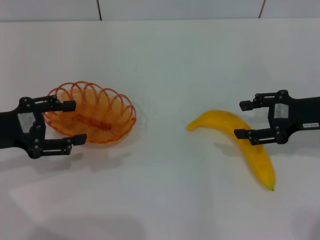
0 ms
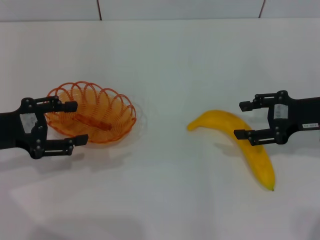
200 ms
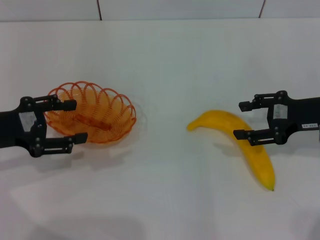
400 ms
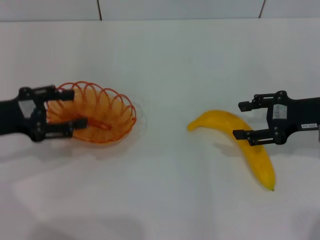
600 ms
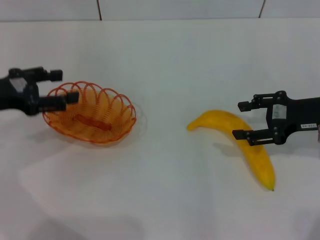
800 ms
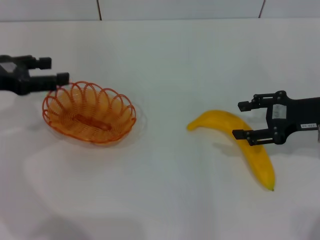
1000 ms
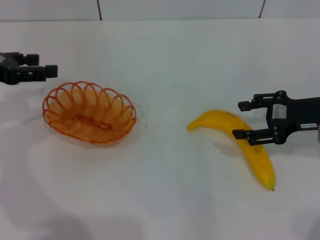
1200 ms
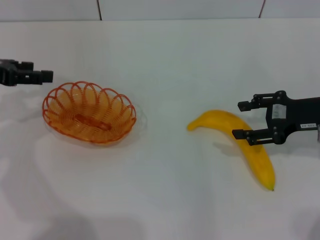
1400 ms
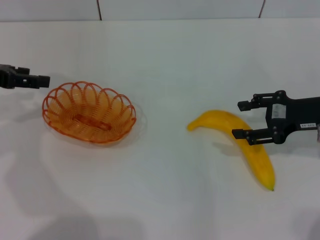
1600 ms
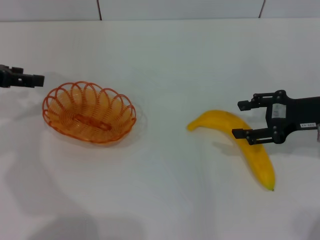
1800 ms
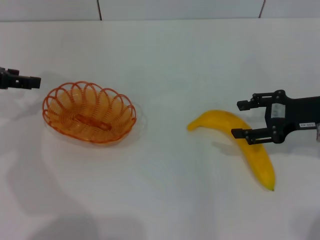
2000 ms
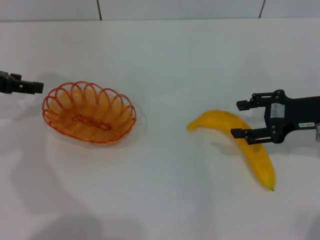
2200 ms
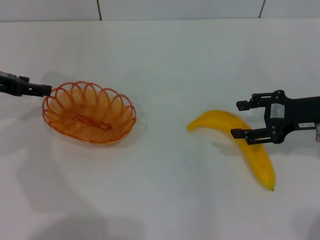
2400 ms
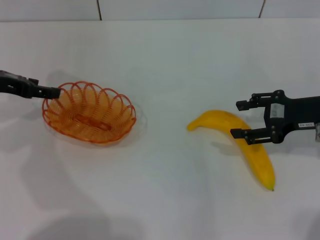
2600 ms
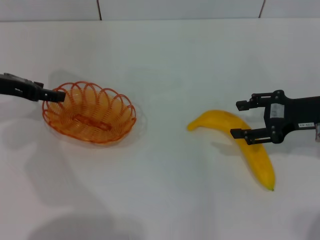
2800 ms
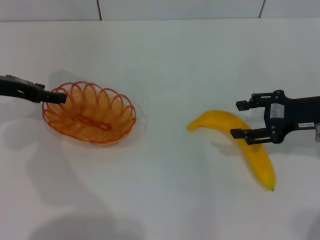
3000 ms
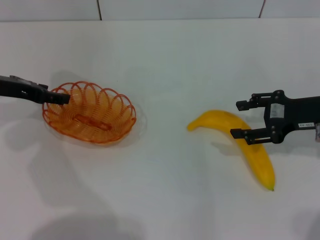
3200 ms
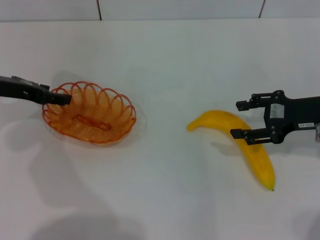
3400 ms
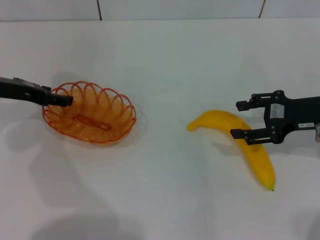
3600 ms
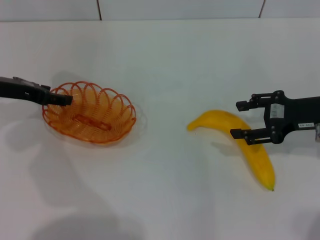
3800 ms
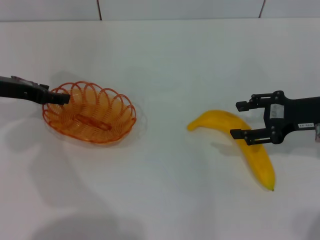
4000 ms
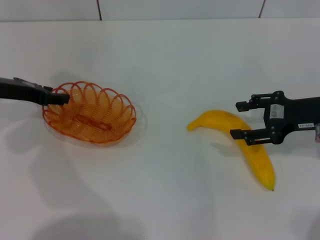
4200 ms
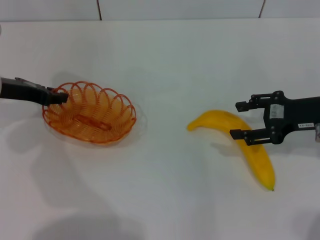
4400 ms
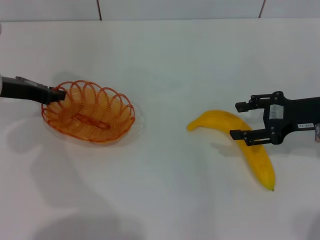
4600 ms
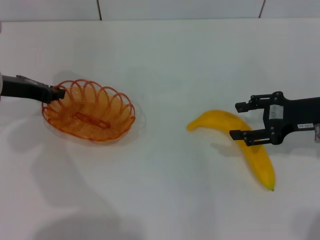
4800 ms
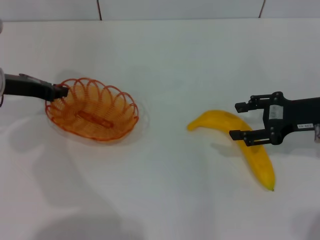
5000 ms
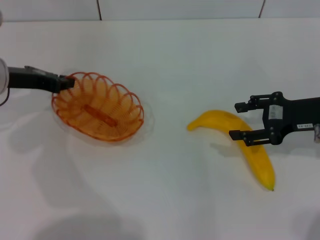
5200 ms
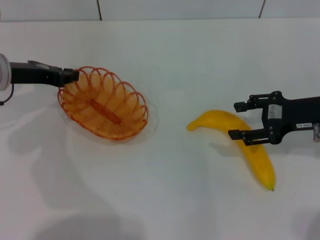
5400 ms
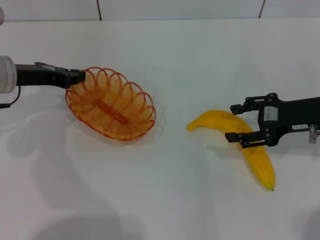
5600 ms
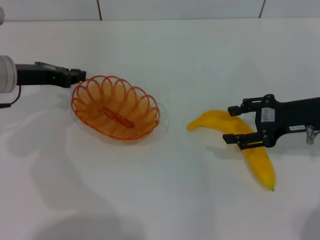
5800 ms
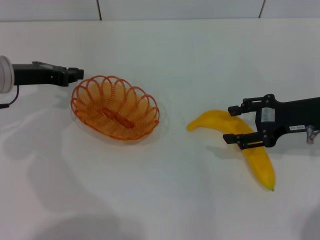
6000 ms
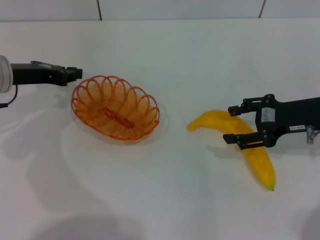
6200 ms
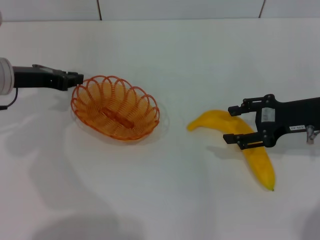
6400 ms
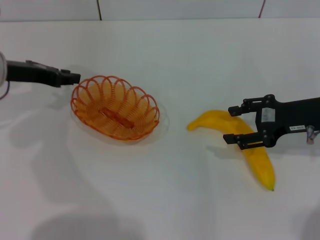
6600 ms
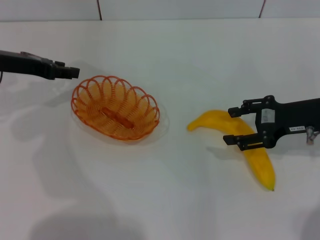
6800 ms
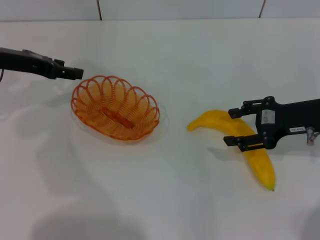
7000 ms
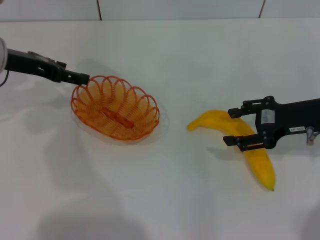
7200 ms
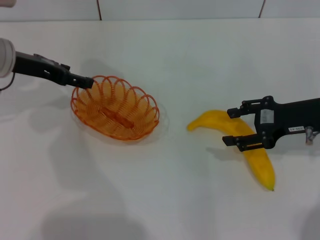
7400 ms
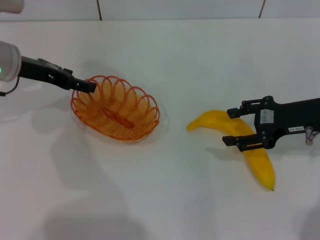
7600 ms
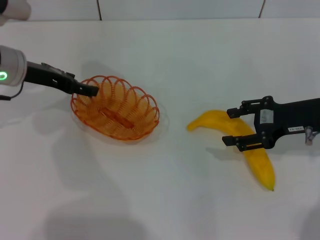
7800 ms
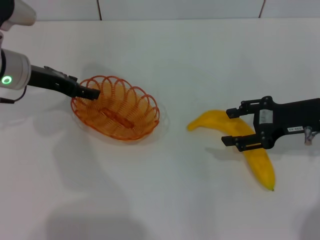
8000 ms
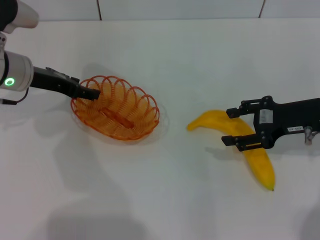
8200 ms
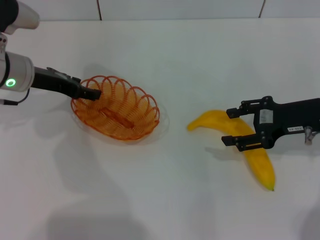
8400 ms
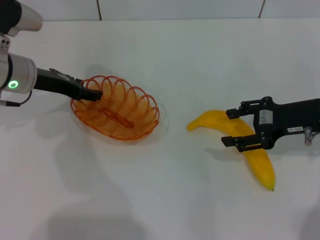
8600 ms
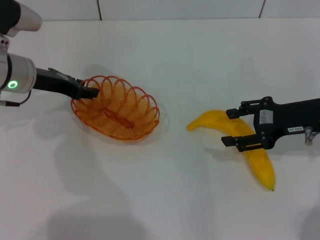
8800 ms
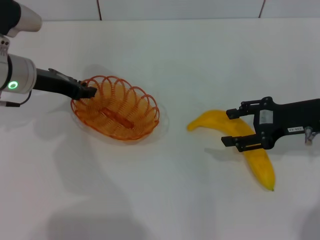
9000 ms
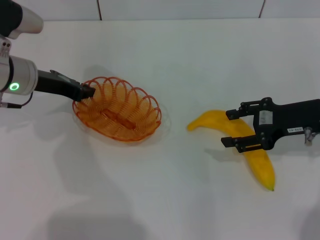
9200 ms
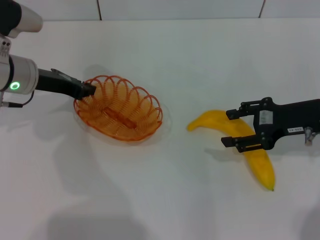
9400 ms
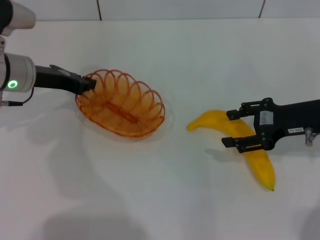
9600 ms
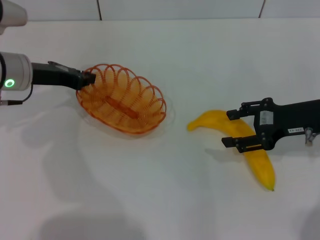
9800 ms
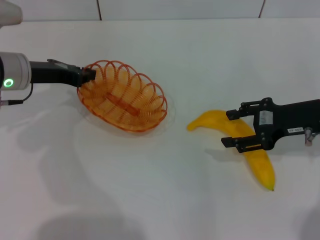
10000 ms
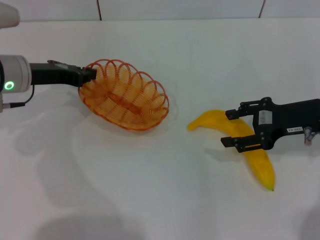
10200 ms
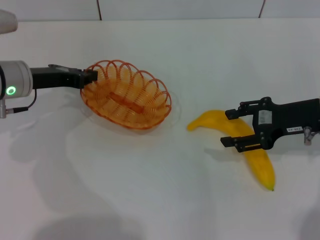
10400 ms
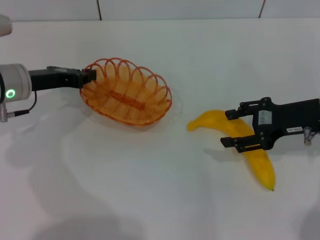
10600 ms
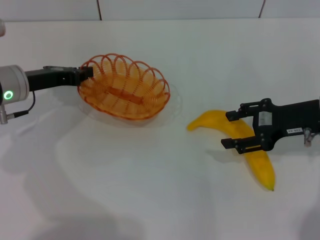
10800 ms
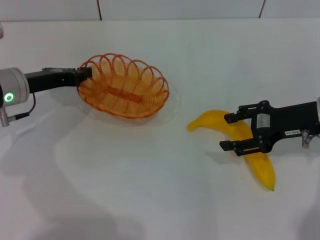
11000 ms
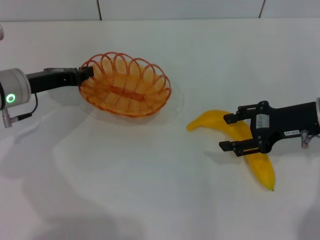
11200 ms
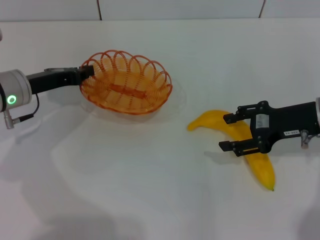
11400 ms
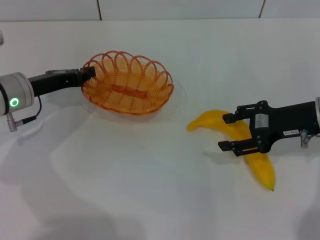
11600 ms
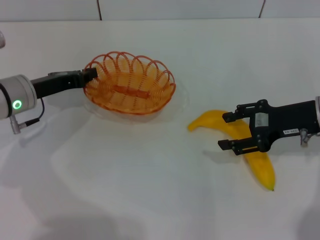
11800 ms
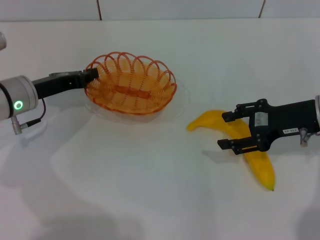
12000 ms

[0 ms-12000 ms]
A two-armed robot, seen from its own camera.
Step, 0 ms to 10800 ms: Pick up the basket with the left gripper.
0 ms to 1600 ms: The left gripper shifts approximately 10 cm forward and upward.
1600 ms to 3000 ms: The left gripper moves about 5 cm.
3000 ms to 4400 ms: The grippers stay close to where they were, moving slightly.
4400 ms to 6000 ms: The left gripper closes.
6000 ms to 7600 ms: The left gripper opens.
7600 ms to 9000 ms: The left gripper closes up.
9000 ms to 10400 ms: The left gripper closes its fingers.
10400 ms to 12000 ms: There are only small adjustments of the grippers.

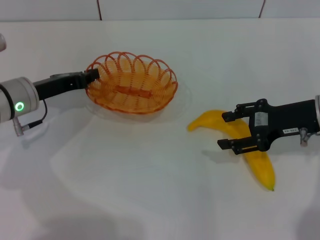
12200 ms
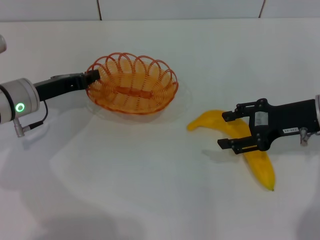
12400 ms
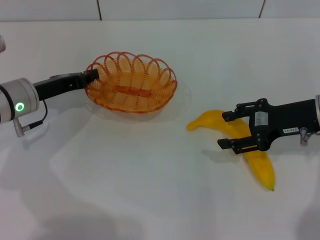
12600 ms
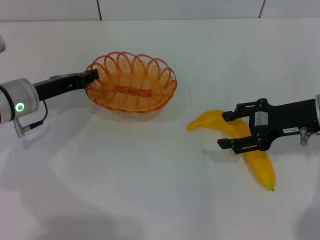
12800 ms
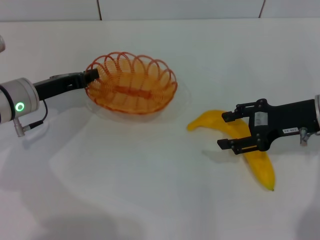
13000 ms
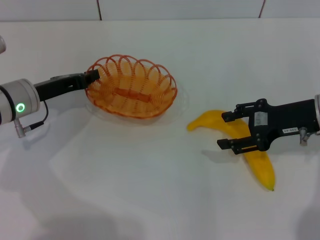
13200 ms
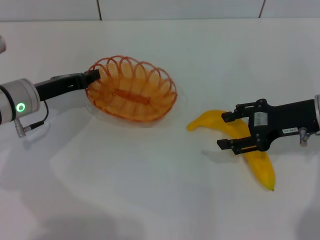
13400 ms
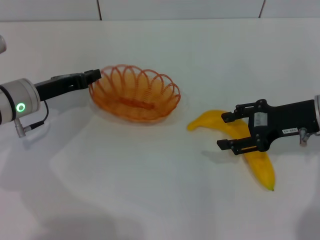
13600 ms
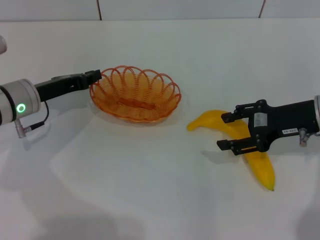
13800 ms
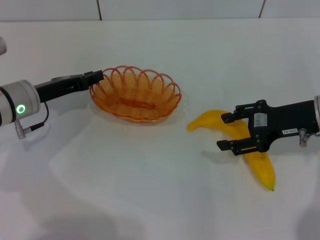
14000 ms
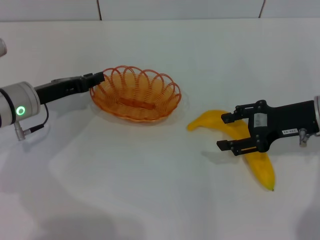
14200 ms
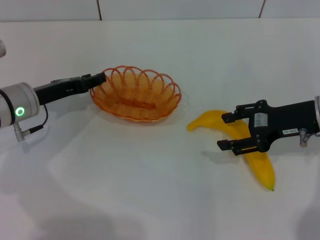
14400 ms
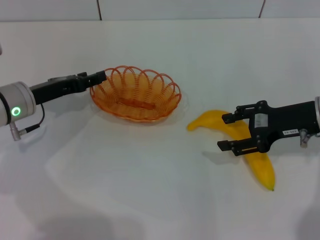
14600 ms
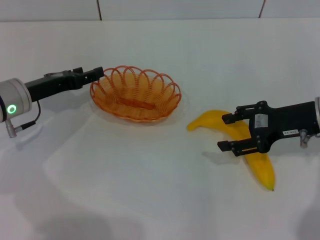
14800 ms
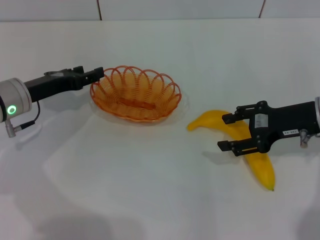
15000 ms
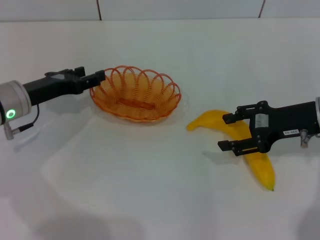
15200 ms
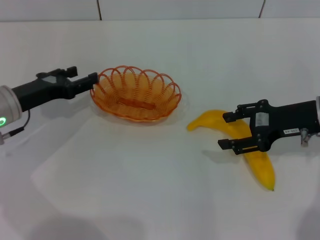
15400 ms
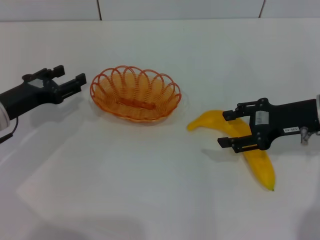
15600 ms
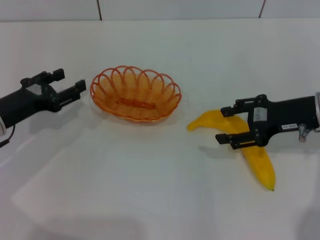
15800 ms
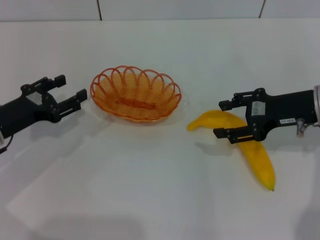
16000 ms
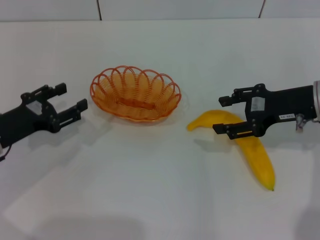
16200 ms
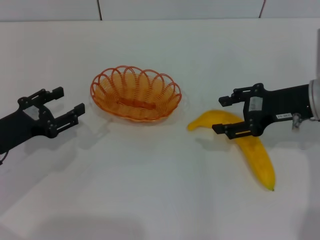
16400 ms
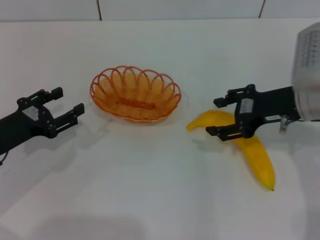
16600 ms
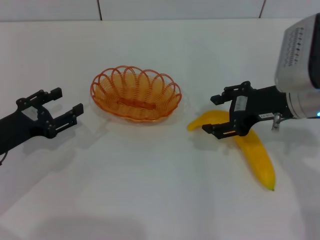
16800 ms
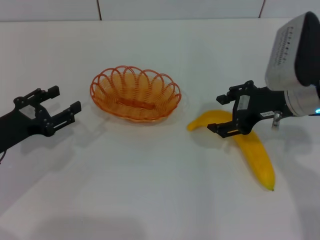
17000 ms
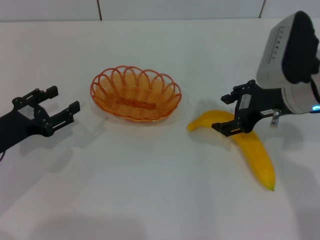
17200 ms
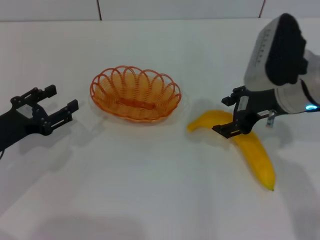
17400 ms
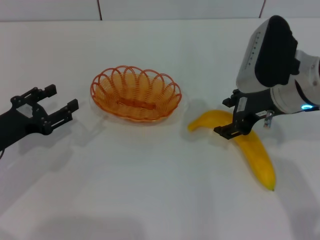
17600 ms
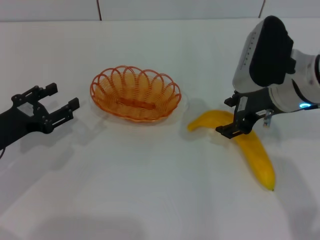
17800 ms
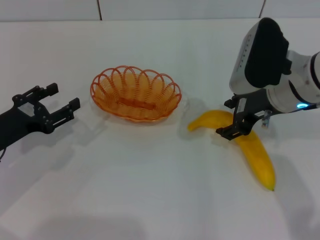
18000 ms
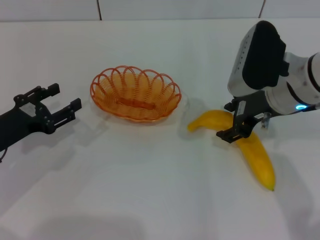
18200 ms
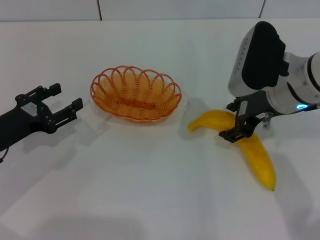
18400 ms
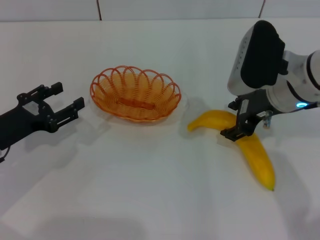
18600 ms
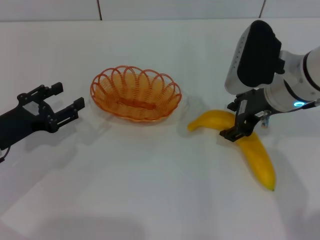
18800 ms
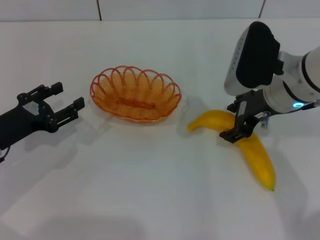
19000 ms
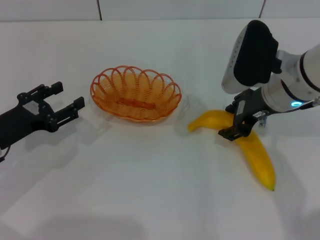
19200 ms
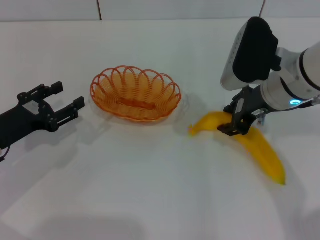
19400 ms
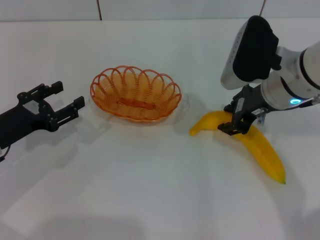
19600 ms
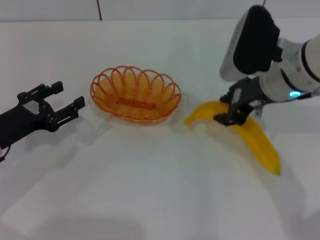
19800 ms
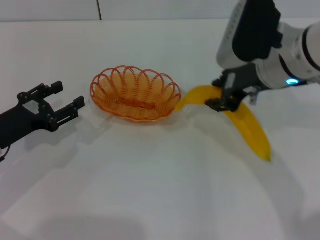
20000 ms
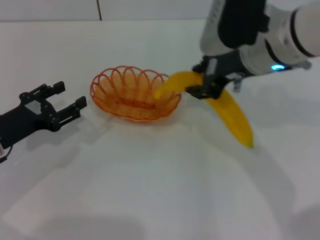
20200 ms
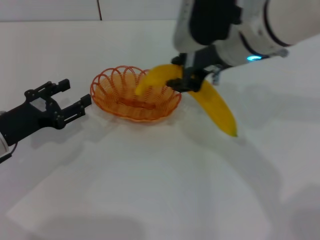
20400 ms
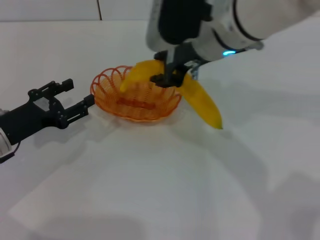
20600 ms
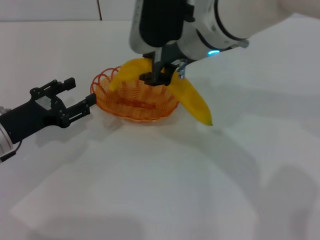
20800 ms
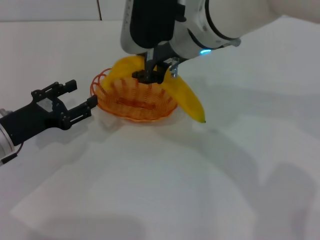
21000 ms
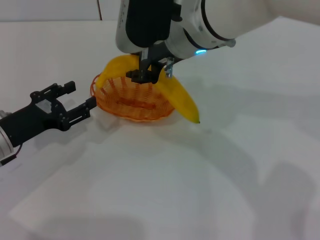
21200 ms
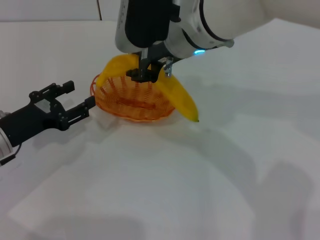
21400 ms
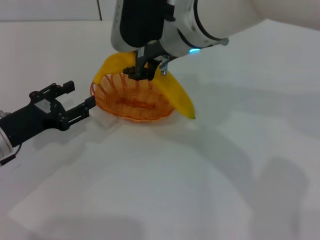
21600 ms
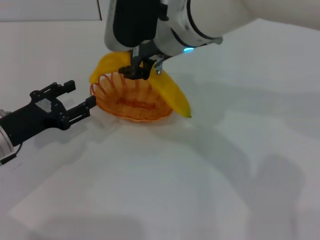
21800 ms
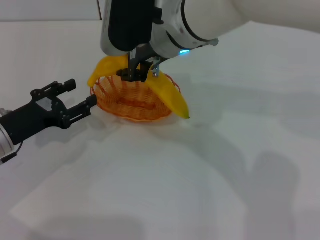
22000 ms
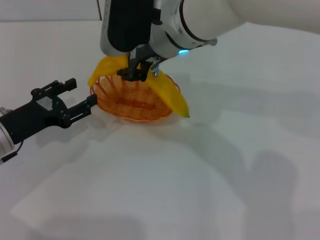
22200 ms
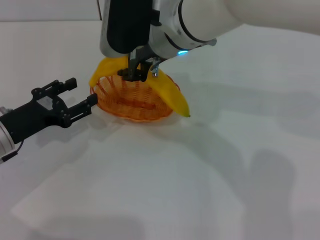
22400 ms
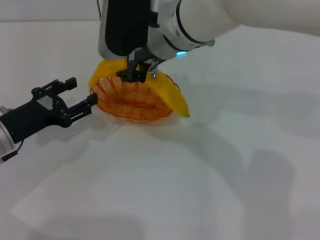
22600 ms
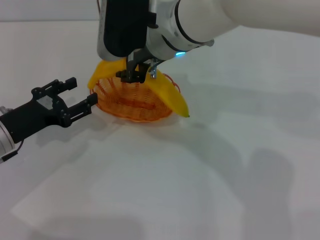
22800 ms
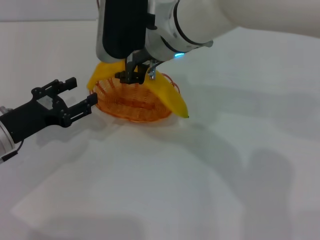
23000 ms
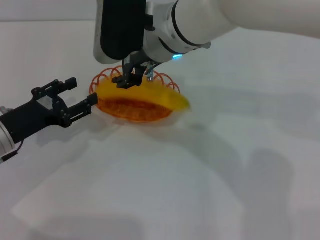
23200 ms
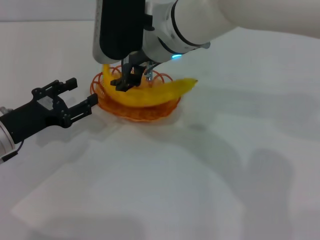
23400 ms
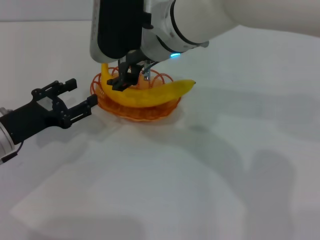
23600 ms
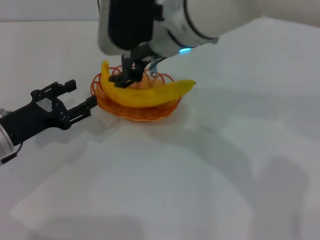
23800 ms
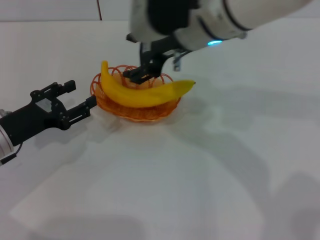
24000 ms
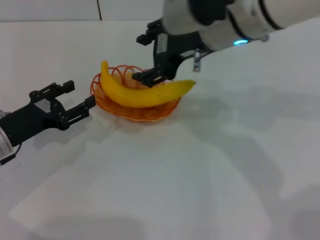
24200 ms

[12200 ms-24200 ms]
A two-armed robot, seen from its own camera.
Step, 12200 ms to 15800 ms: Place the basket in the center of view with the left gripper.
Step, 16000 ms to 19800 ms: Pick up the banana with the right gripper.
Step, 20000 ms to 23600 ms: Place the banana into the basket with the right gripper.
12200 ms to 13800 ms: Neither gripper changes place.
13800 ms to 15200 ms: The left gripper opens its fingers.
15200 ms to 16600 ms: The left gripper heads backward, covering about 10 cm.
16600 ms to 18200 ms: The right gripper shifts approximately 5 cm to the left.
18200 ms to 19800 ms: The right gripper closes up.
19800 ms to 21200 ms: The right gripper heads to the left and upward, covering some 15 cm.
21200 ms to 22600 ms: The grippers make only small movements.
22600 ms to 24200 ms: The right gripper is displaced to the right by some 5 cm, and opens its fingers.
